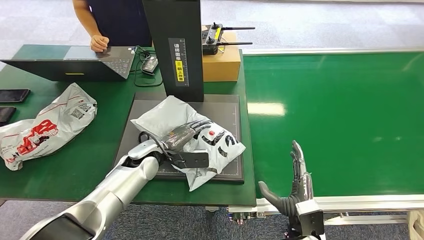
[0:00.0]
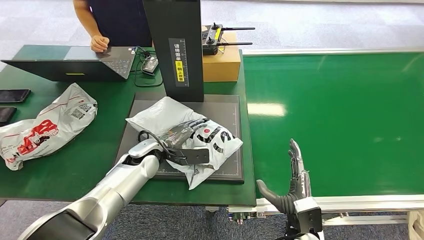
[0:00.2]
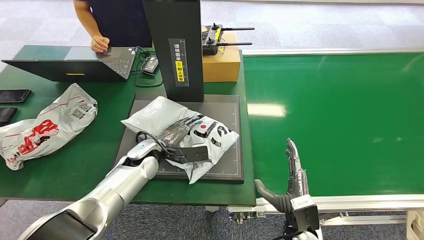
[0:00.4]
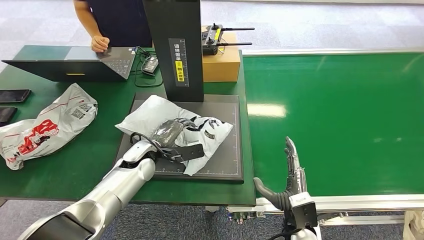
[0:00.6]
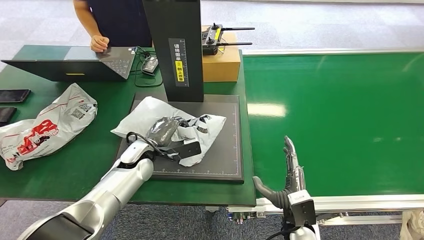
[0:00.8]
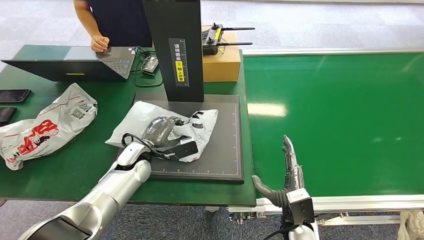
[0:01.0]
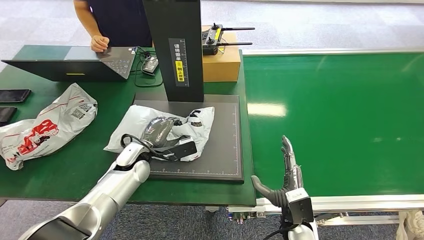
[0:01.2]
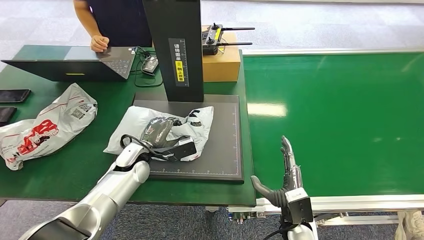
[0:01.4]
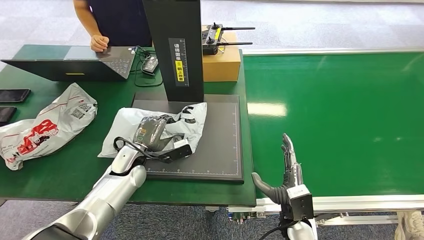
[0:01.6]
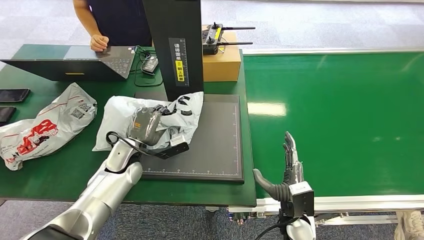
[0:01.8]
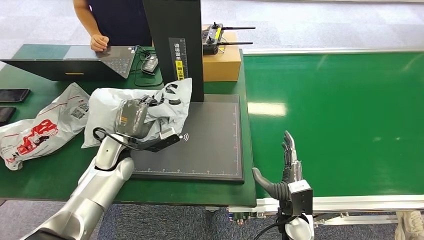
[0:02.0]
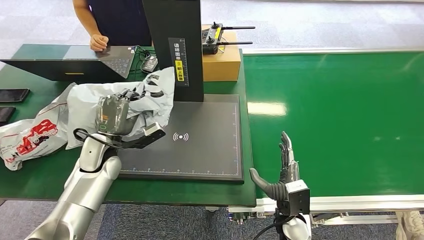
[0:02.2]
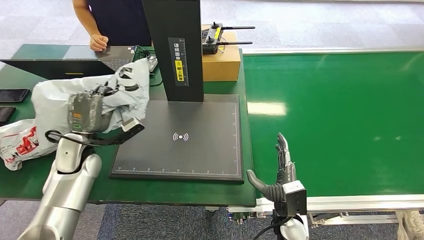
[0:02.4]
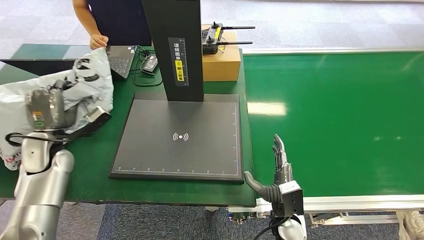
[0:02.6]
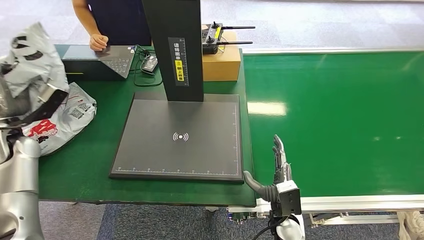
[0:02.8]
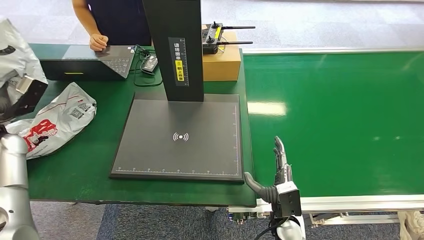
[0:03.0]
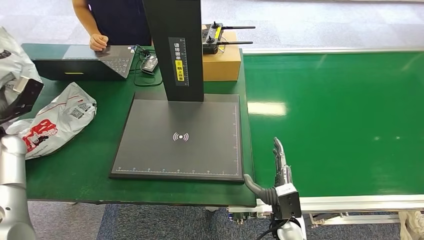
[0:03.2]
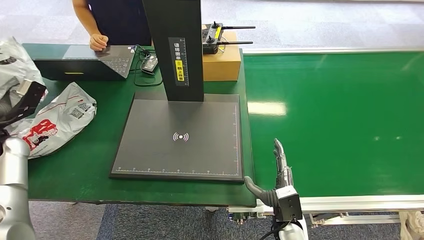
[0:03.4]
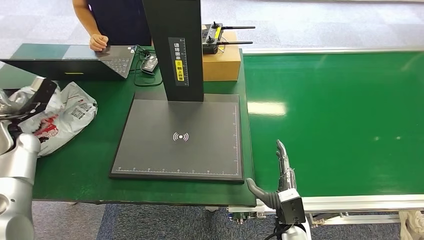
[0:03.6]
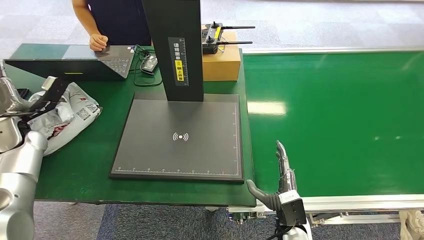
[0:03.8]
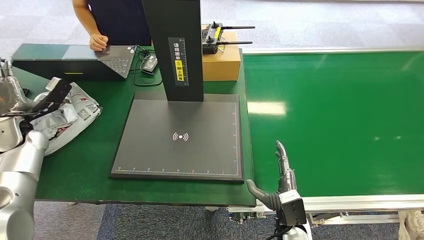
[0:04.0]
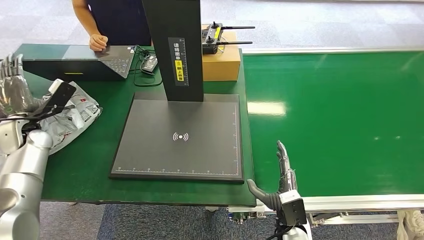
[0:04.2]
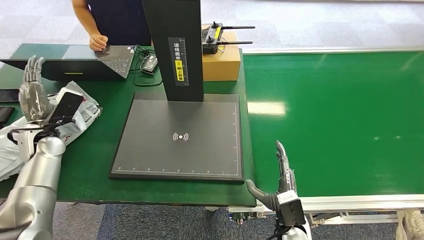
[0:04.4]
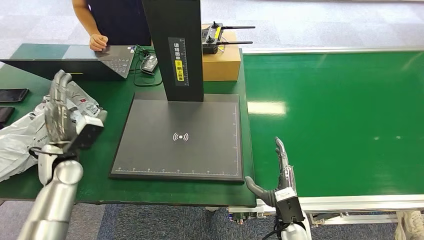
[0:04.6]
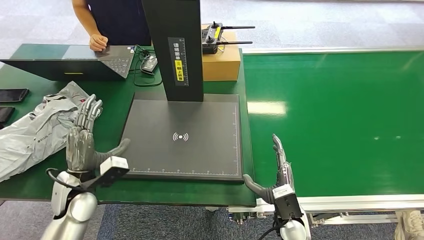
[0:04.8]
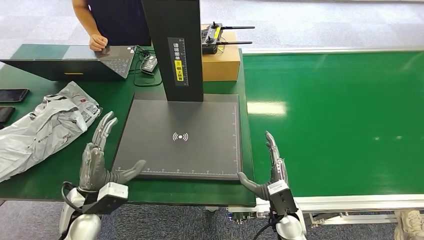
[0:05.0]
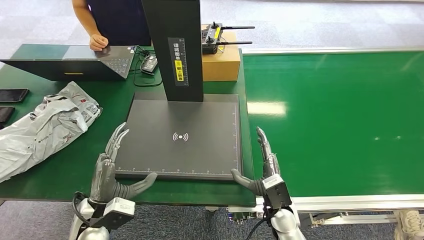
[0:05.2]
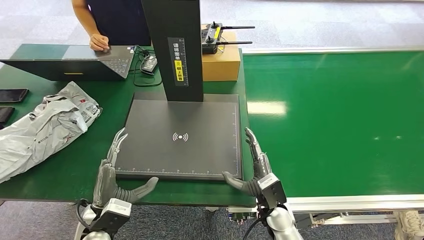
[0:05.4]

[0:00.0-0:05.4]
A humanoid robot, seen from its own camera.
Step, 0:02.0 to 0:05.4: Place the package into the parcel locker.
0:04.0 to 0:05.4: The right hand ends up some 5 cm from where it was; the left hand shifts roughly 30 cm to the right and backward.
